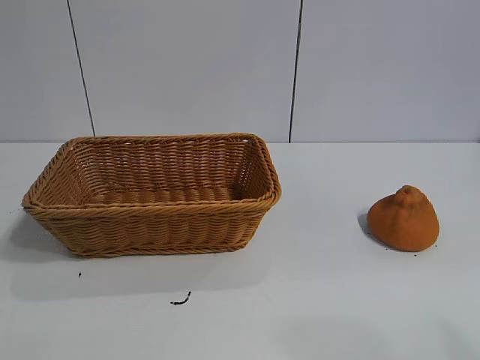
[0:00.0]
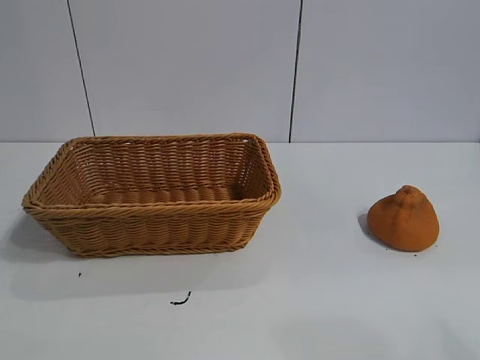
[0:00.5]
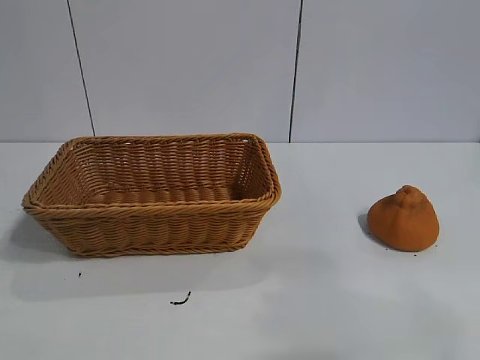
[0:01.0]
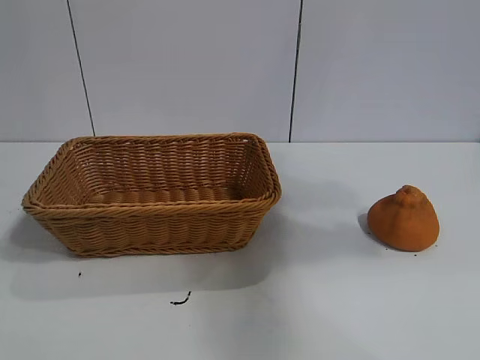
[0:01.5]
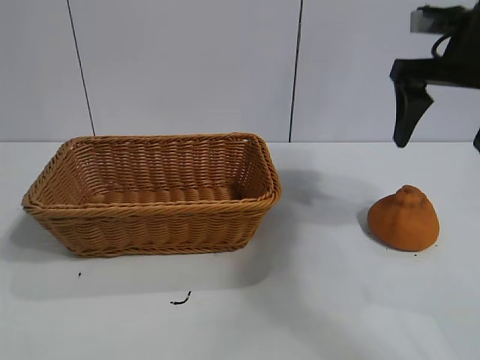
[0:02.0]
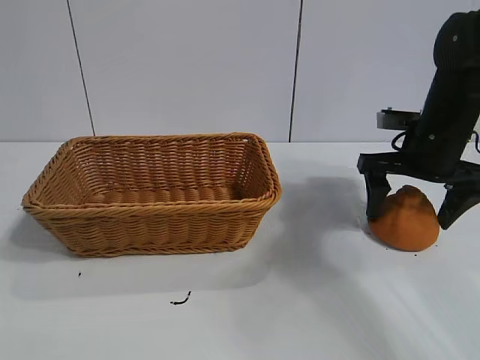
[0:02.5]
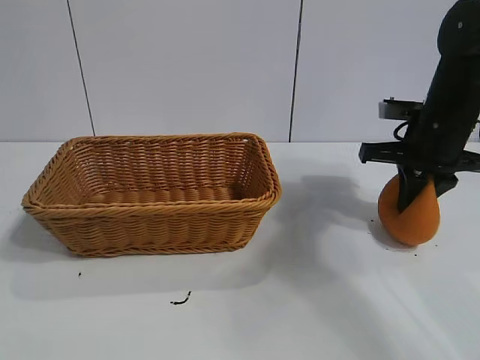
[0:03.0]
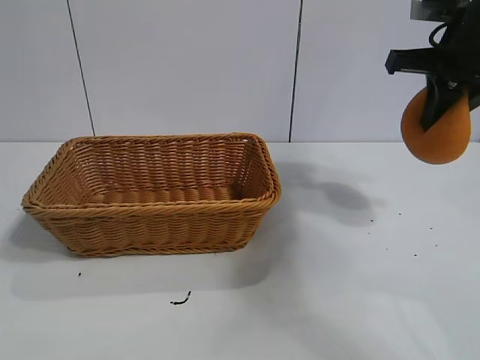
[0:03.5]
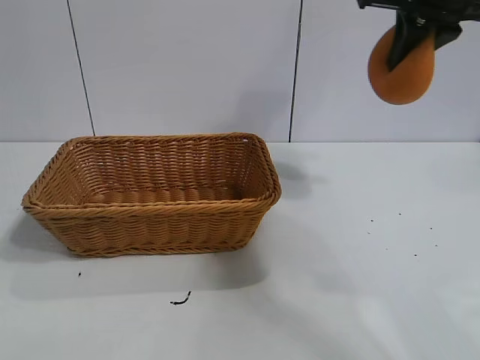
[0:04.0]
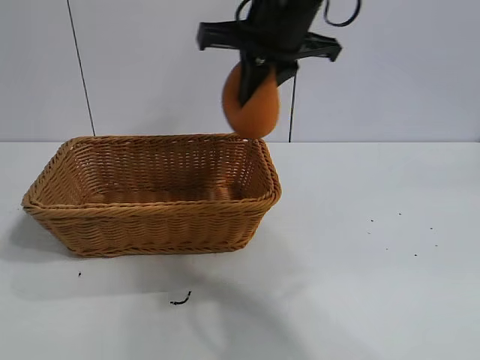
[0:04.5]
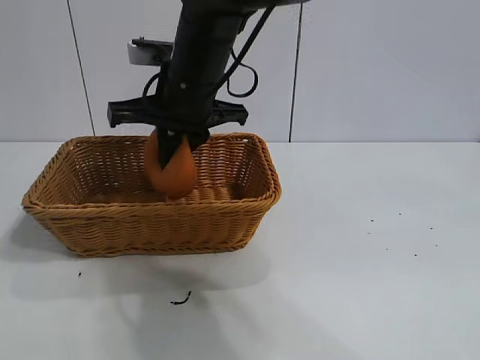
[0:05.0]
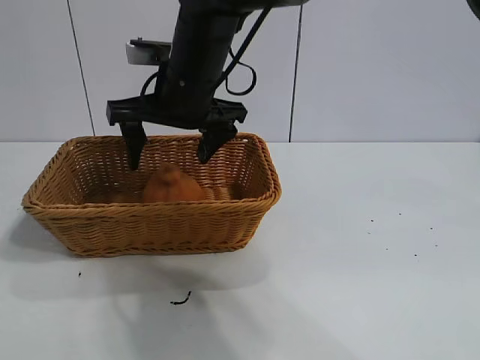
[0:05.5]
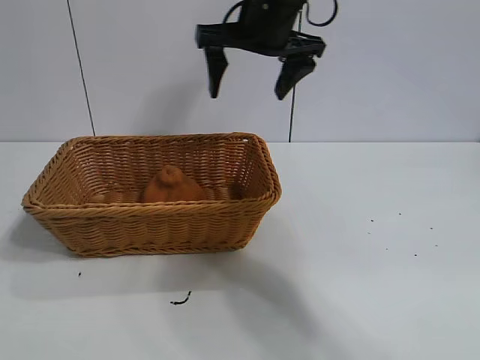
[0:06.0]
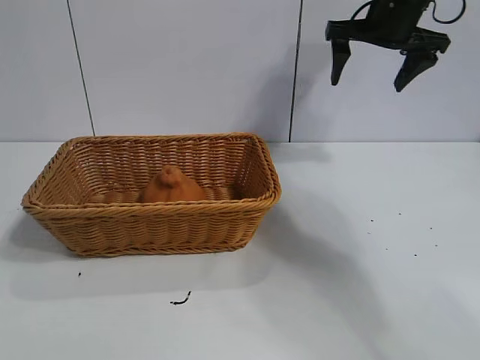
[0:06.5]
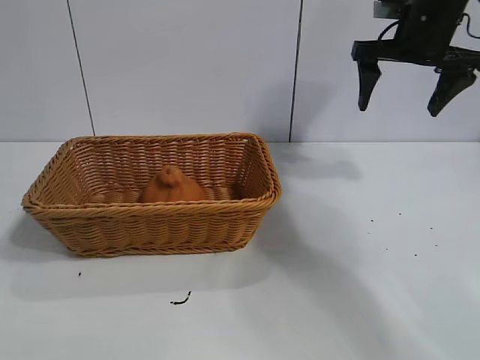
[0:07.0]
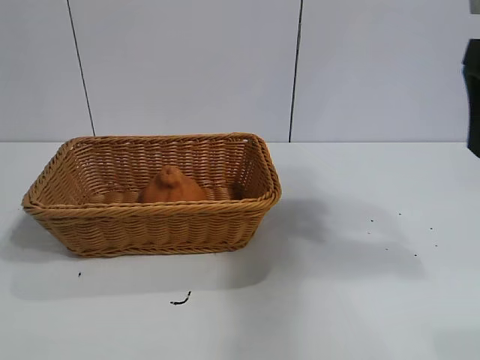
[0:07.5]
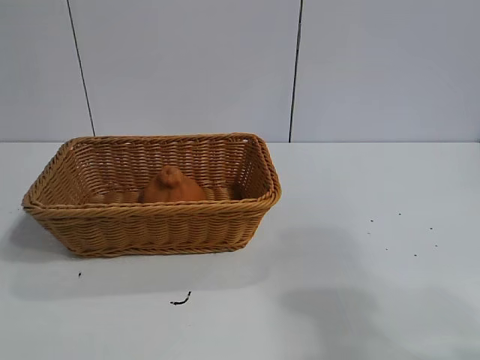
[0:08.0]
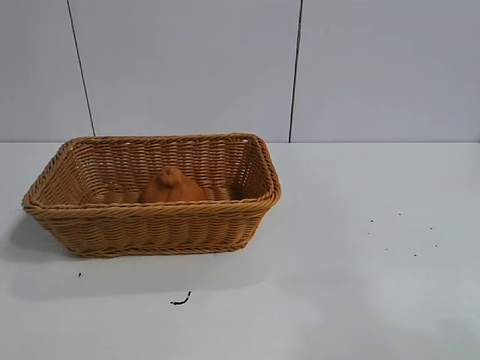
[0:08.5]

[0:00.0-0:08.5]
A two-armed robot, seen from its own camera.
Task of the whole recording: pick up the orange and put it into the basket.
Step, 0:01.0 to 0:02.5: Grasp the orange with right gripper.
Step, 0:03.0 to 0:05.0: Place the orange in the basket with right gripper.
